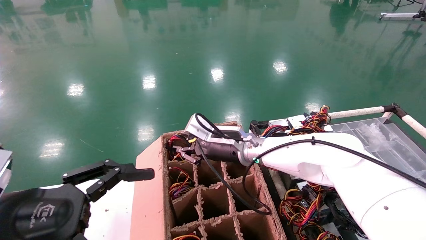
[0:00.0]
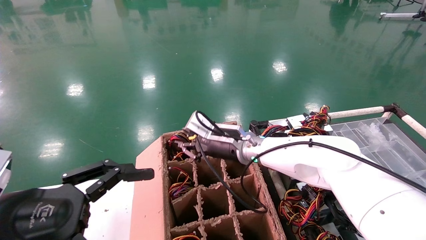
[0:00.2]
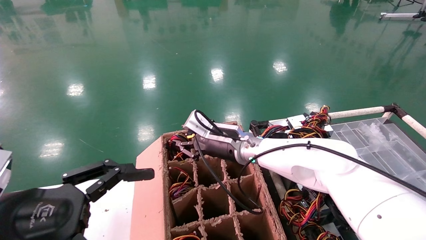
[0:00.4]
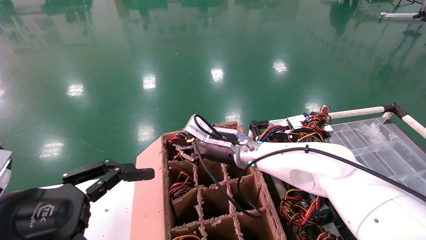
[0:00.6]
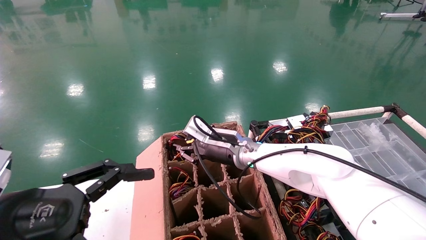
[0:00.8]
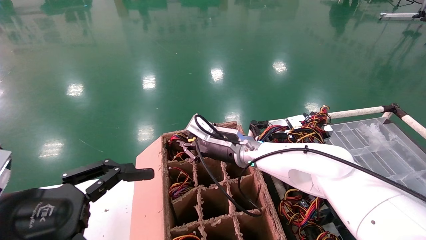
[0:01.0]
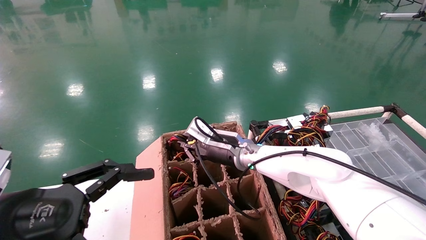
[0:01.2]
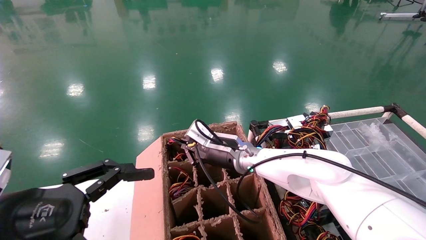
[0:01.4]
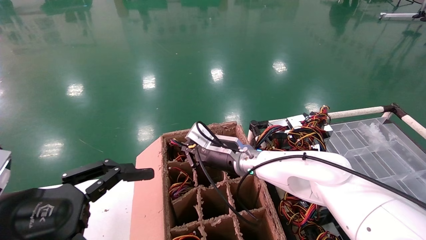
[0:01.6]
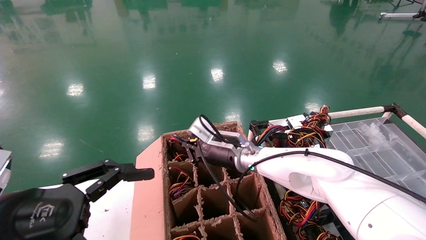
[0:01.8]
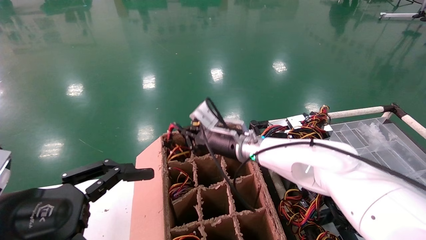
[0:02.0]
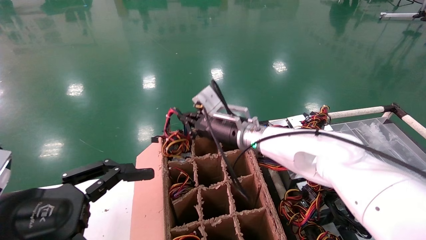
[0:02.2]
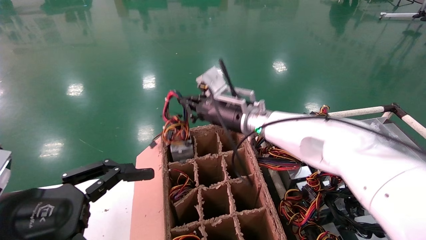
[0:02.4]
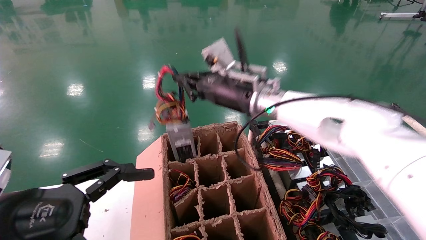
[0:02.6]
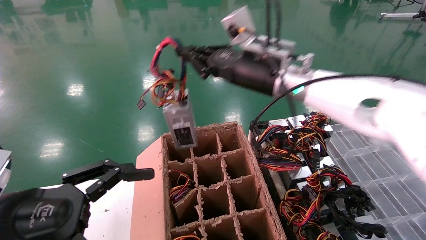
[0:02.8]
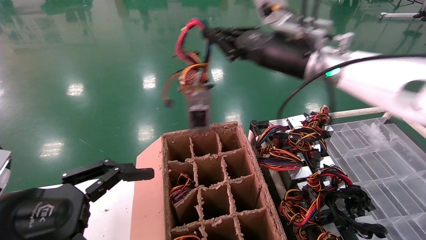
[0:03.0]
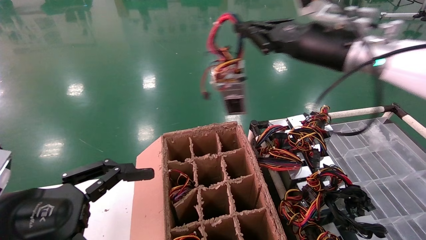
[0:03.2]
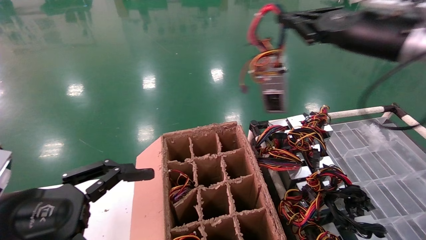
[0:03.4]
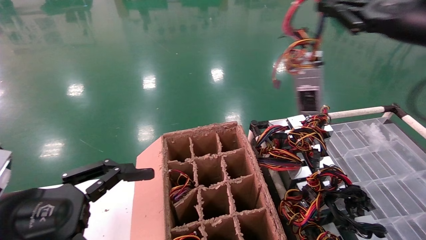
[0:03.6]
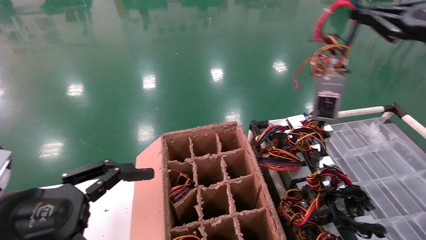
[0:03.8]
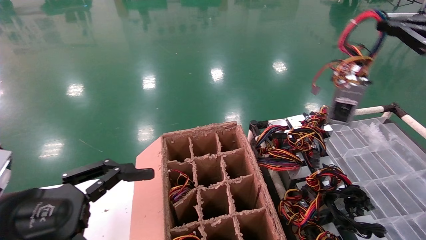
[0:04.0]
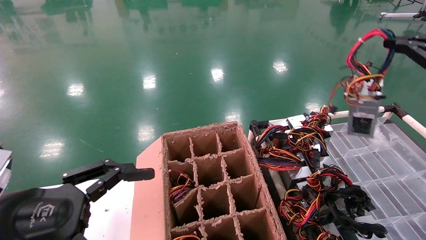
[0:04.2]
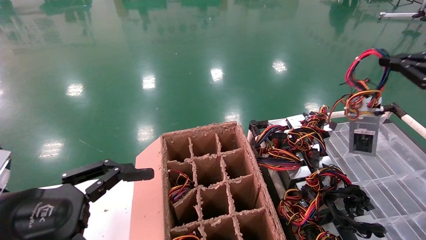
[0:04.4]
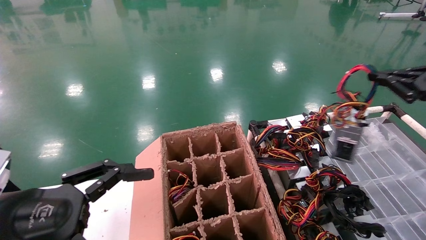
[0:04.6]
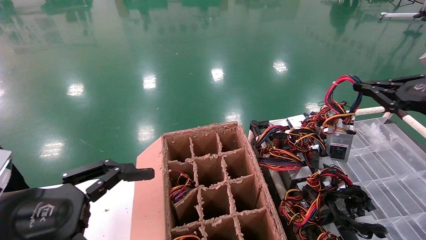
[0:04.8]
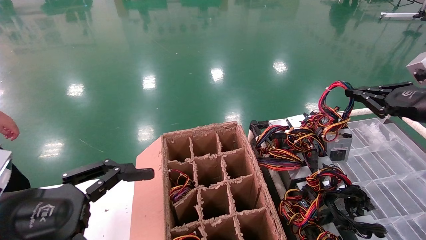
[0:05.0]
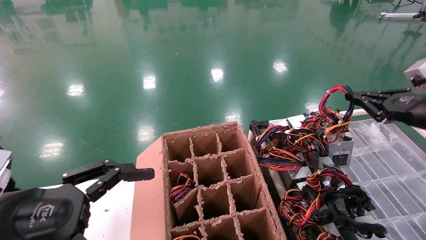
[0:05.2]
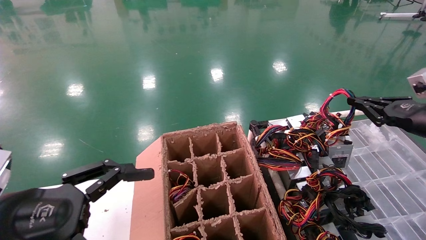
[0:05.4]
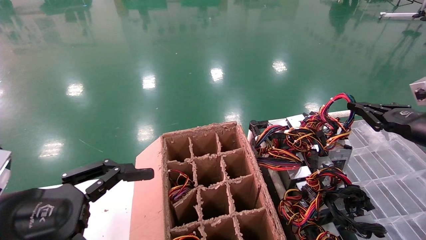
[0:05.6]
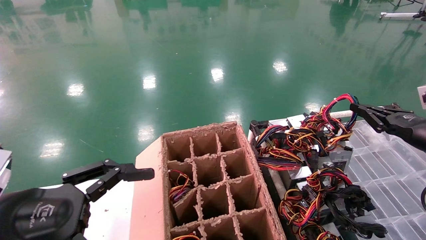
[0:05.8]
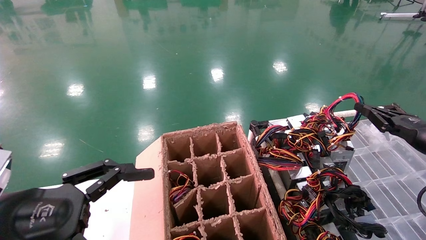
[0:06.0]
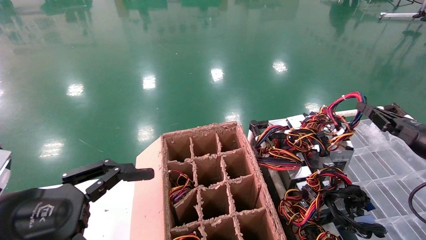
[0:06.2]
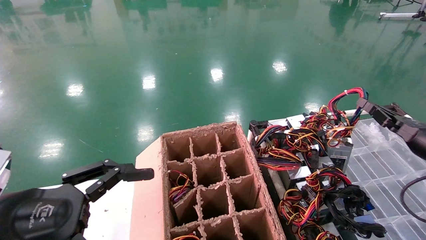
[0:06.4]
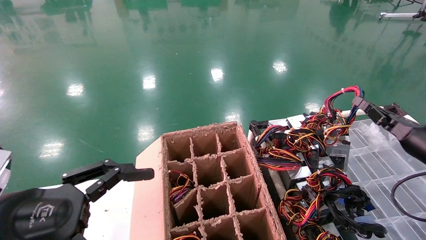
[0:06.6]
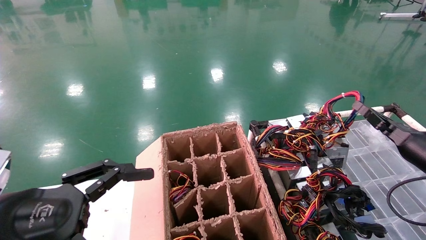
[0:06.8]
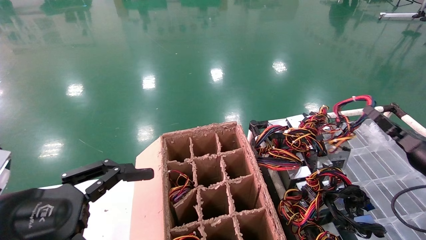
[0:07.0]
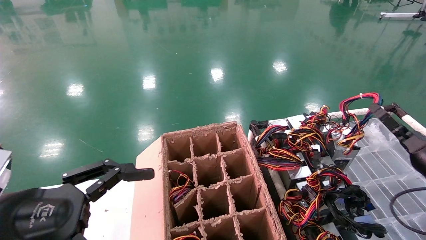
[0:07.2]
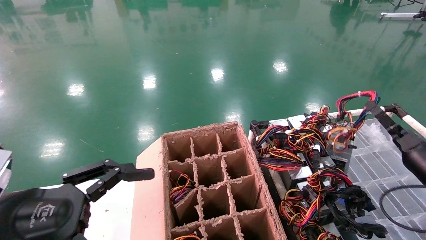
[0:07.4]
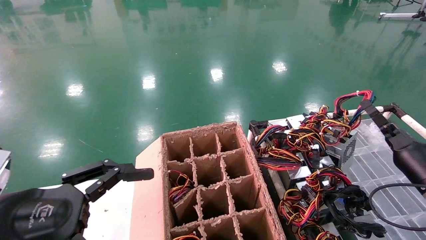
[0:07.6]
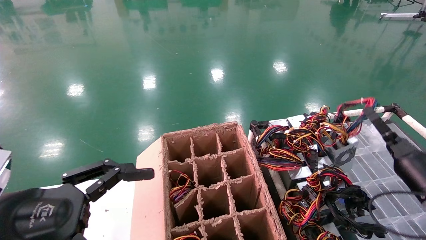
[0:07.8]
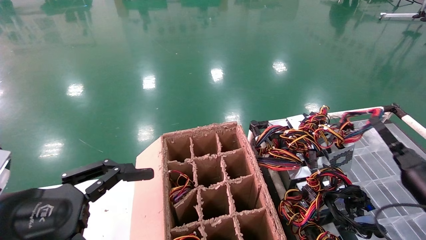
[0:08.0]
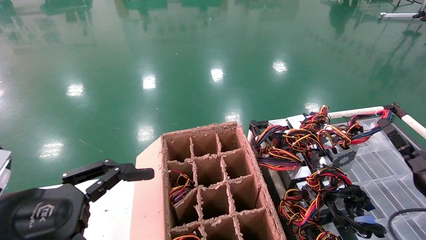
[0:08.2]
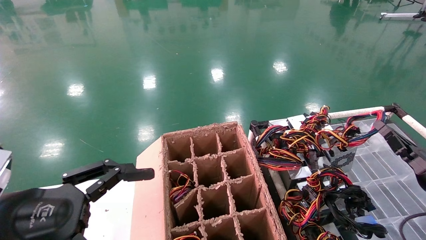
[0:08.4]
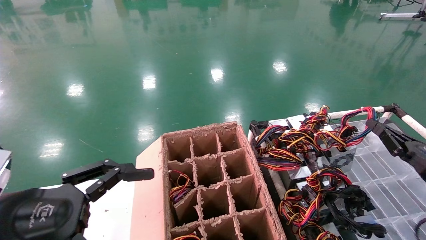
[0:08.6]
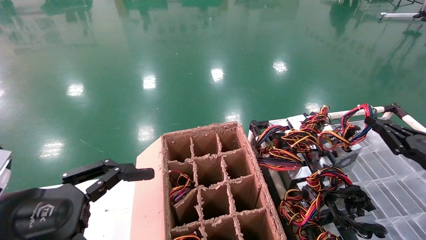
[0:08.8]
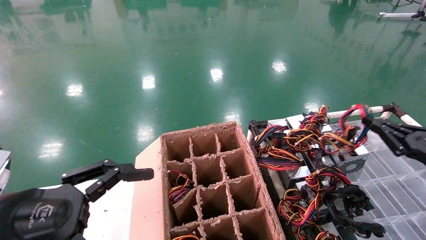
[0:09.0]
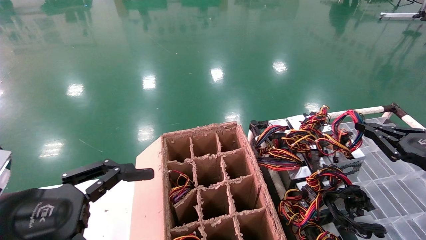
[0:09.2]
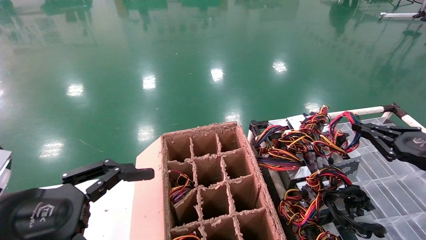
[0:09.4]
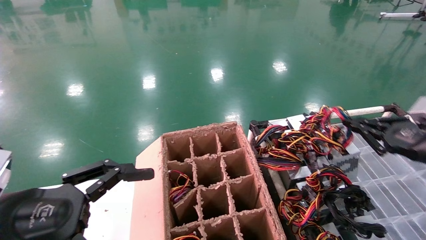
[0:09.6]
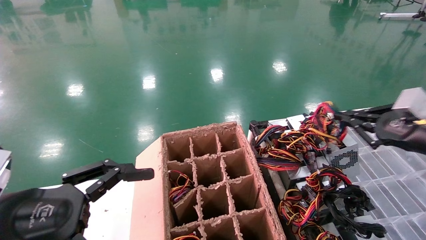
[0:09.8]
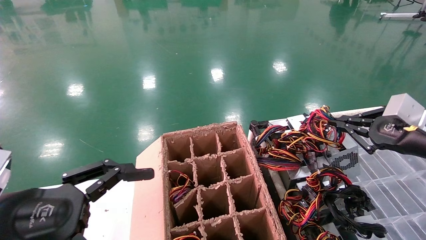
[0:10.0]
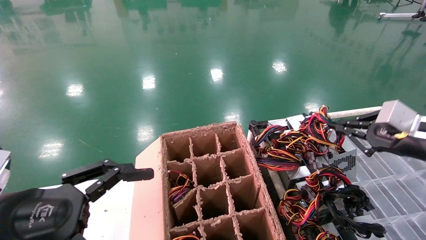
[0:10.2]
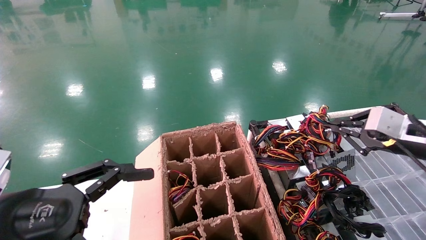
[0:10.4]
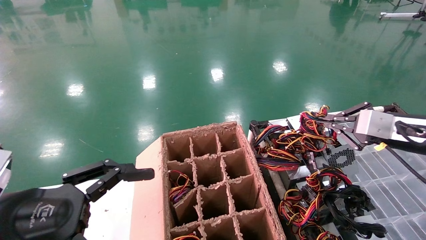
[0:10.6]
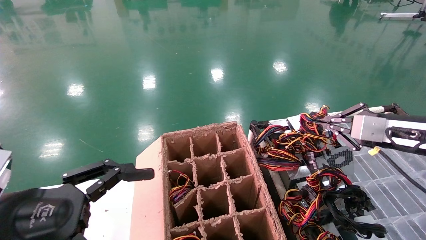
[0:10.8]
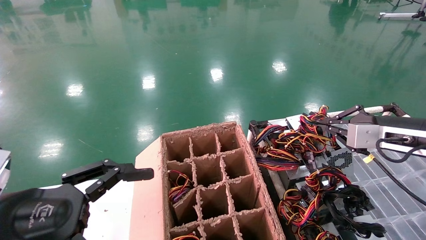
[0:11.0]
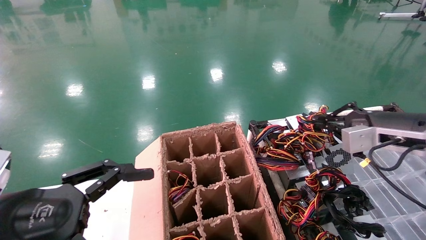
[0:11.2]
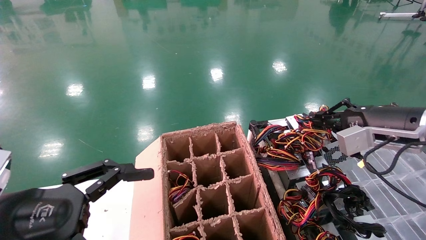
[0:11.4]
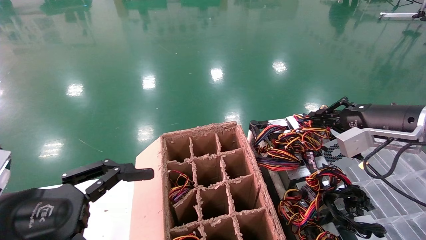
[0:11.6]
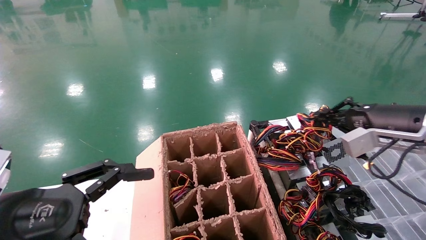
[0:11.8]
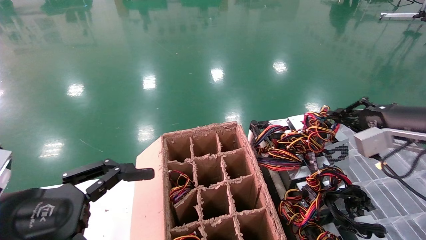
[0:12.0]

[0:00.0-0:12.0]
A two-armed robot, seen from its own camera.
0:00.0 to 0:01.6: The right gripper closes.
0:01.6 to 0:03.0: The right gripper moves upward and to the right, some 25 cm.
0:03.0 to 0:04.4: The right gripper is displaced to the right by roughly 30 cm.
0:04.4 to 0:06.0: The right gripper goes about 15 cm downward and forward.
0:06.0 to 0:07.6: The right gripper moves downward, roughly 10 cm.
0:07.6 to 0:09.0: The right gripper goes some 5 cm backward.
0:09.0 to 0:10.4: The right gripper goes about 10 cm upward and to the left.

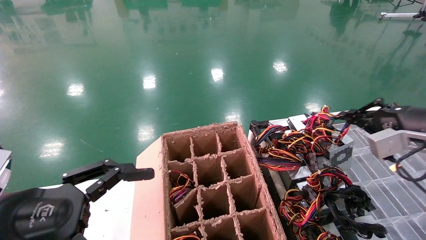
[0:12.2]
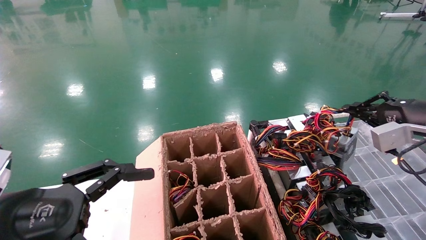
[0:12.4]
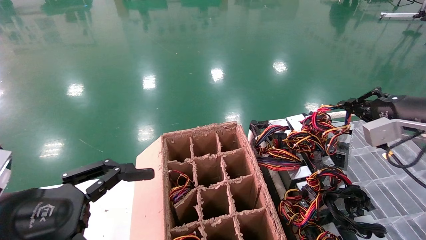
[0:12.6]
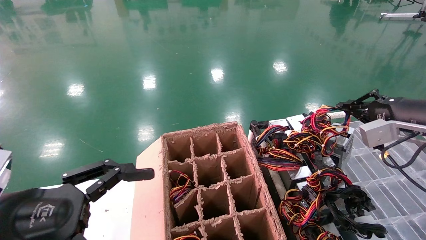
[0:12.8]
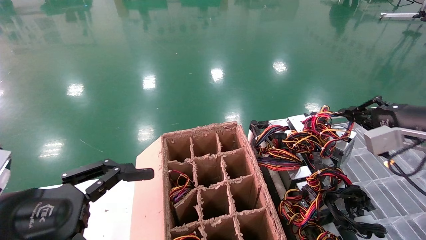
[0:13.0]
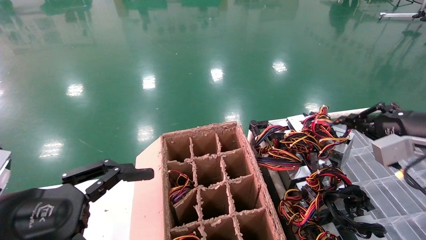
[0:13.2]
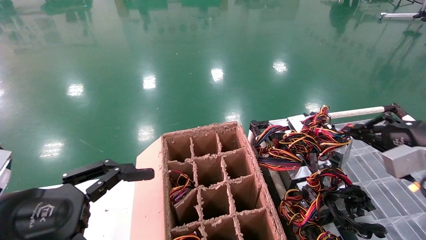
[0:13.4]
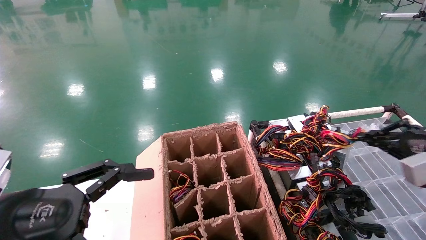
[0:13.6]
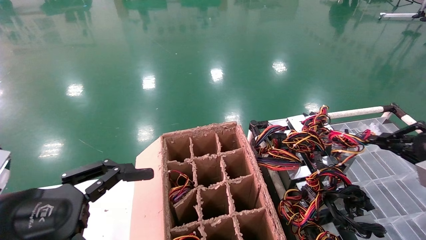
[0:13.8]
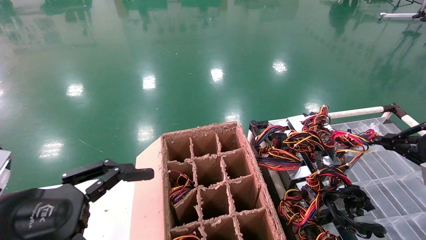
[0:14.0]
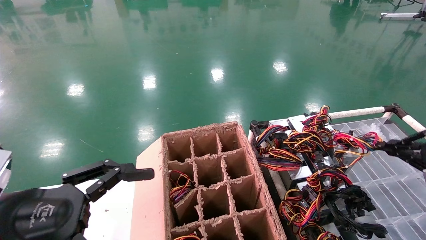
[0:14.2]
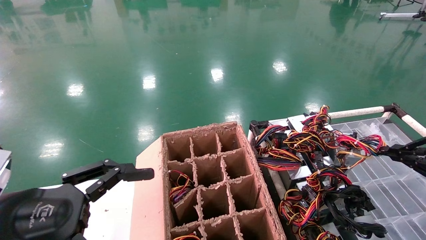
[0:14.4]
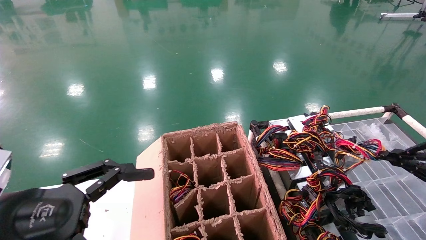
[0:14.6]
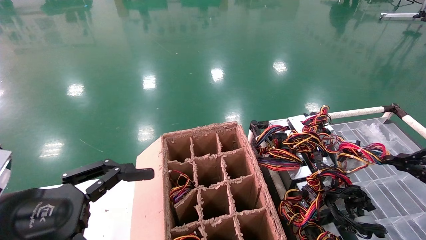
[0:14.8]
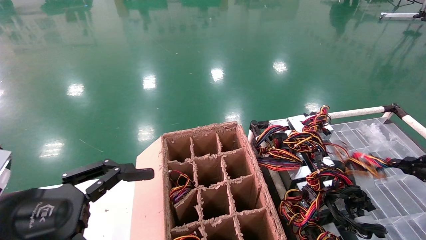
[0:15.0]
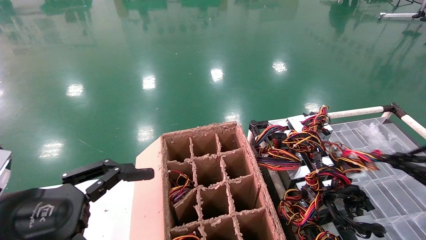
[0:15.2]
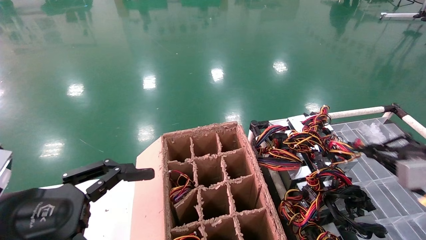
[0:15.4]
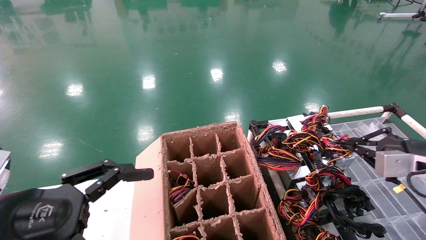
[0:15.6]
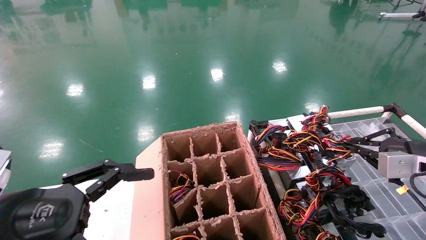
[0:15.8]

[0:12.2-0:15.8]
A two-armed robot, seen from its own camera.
Step, 0:12.2 to 0:15.6: Place the power supply on the operating table.
0:12.2 to 0:14.0: The right gripper travels backward and to the right by some 10 cm.
0:14.0 to 0:15.8: The right gripper changes place by about 5 cm.
